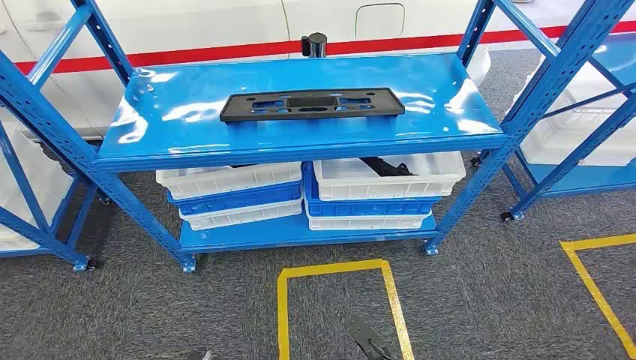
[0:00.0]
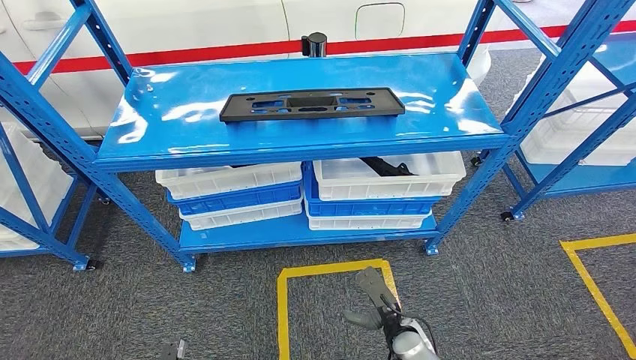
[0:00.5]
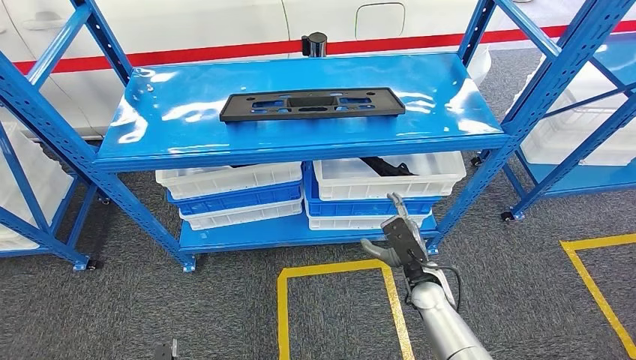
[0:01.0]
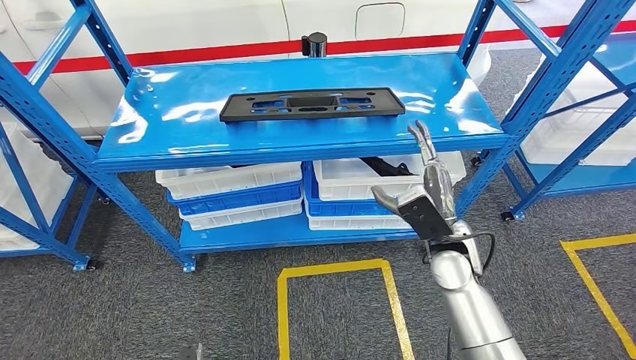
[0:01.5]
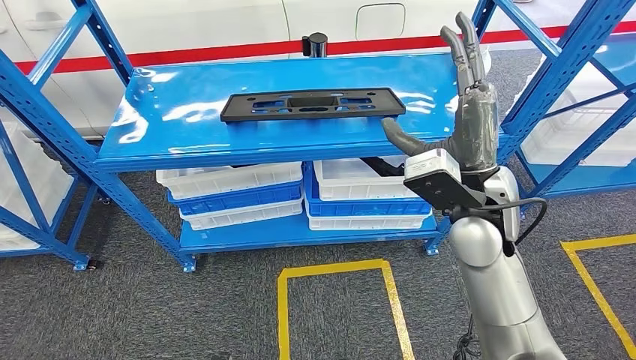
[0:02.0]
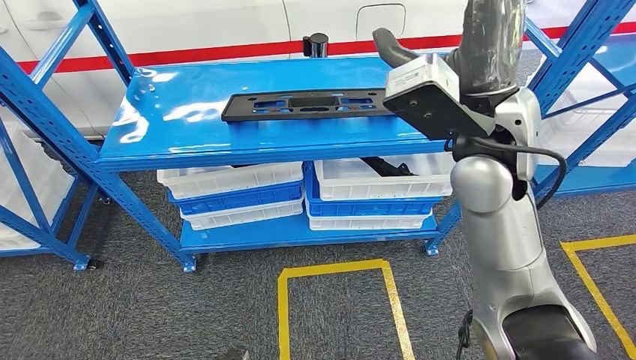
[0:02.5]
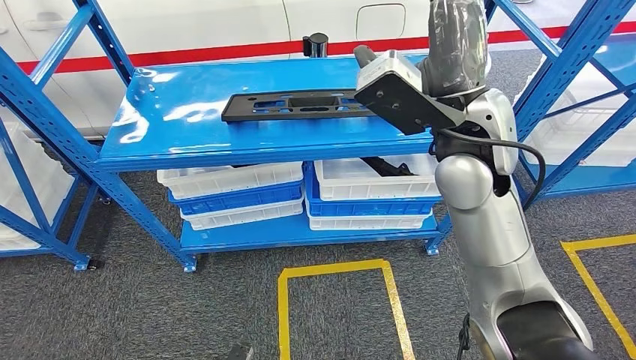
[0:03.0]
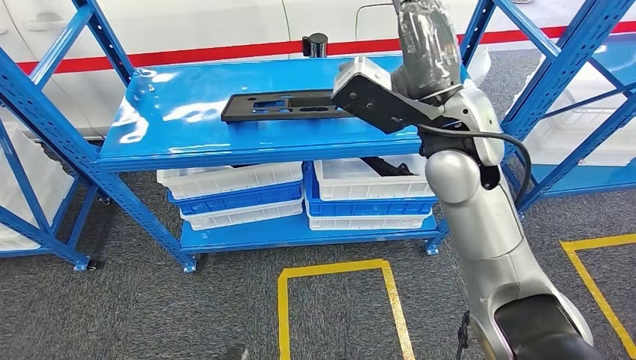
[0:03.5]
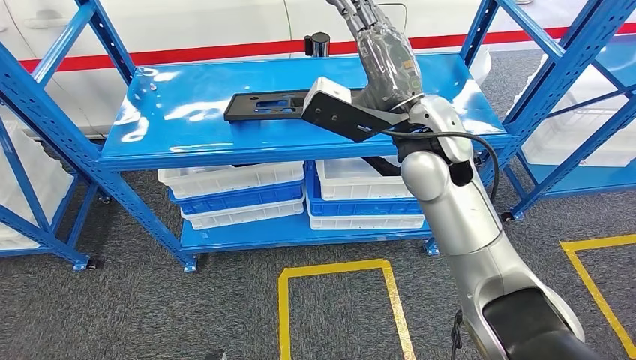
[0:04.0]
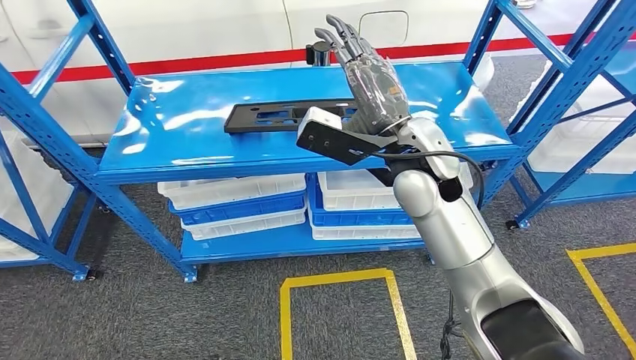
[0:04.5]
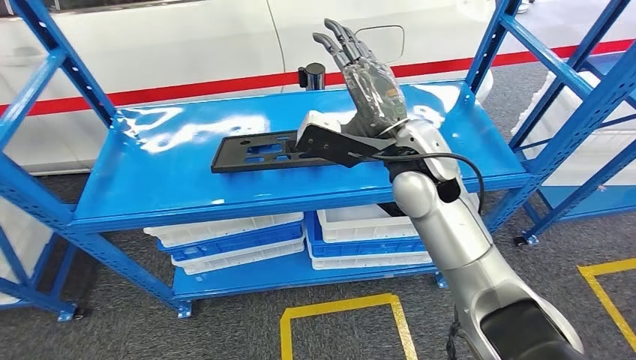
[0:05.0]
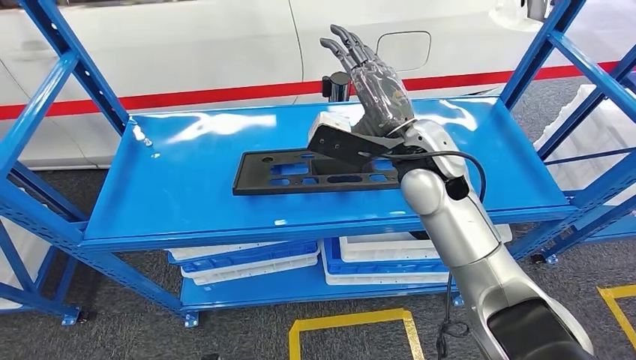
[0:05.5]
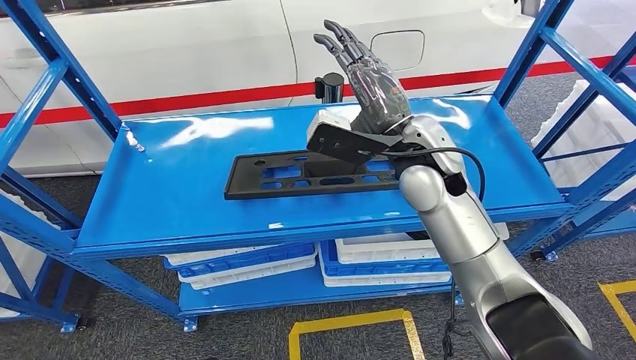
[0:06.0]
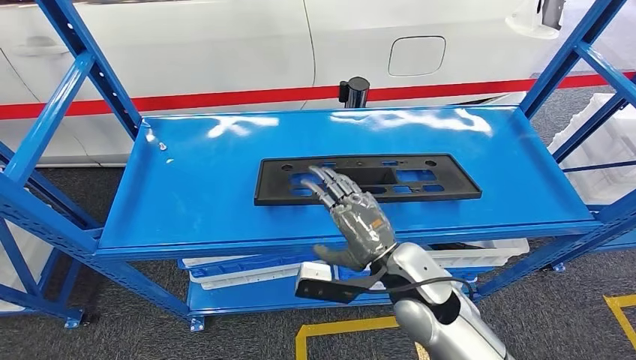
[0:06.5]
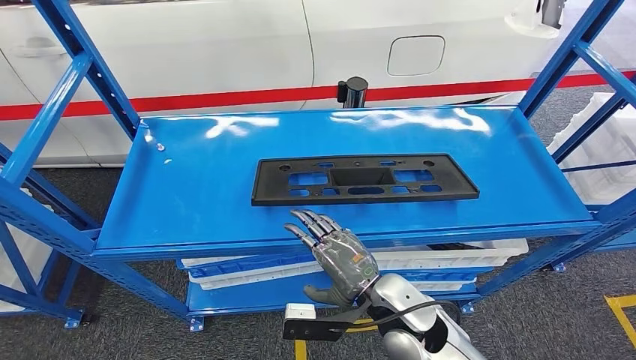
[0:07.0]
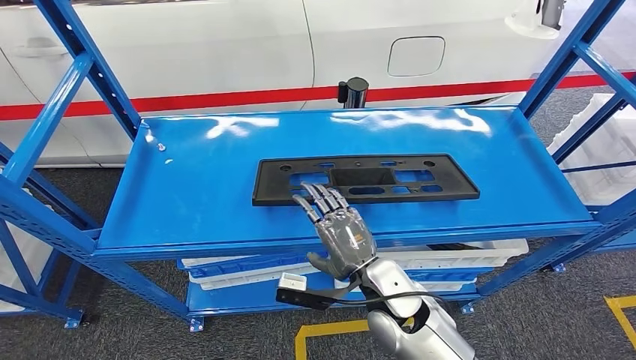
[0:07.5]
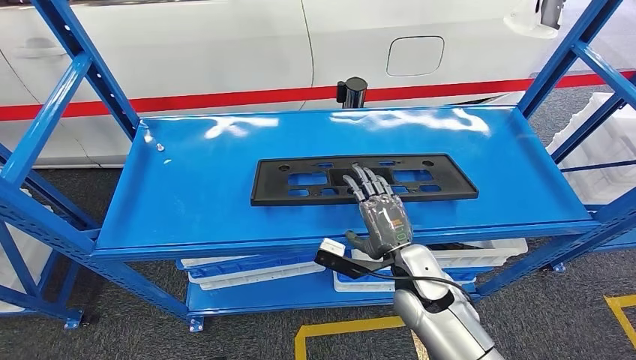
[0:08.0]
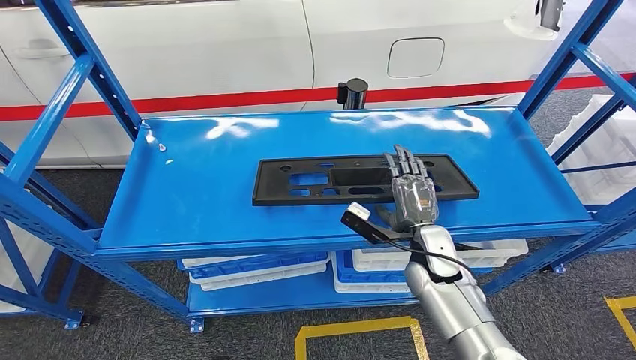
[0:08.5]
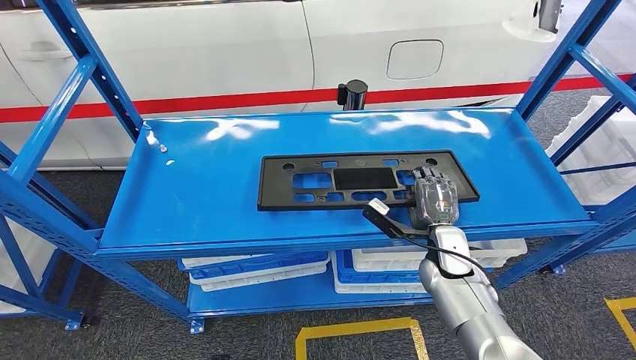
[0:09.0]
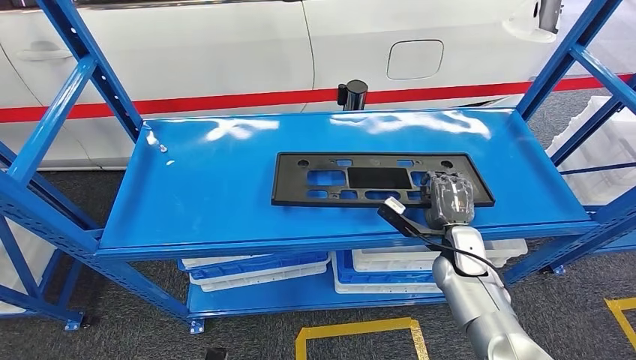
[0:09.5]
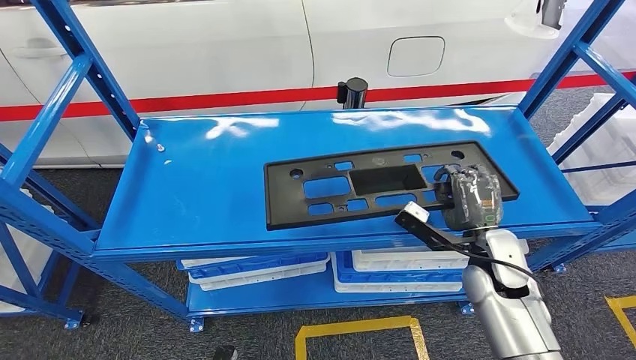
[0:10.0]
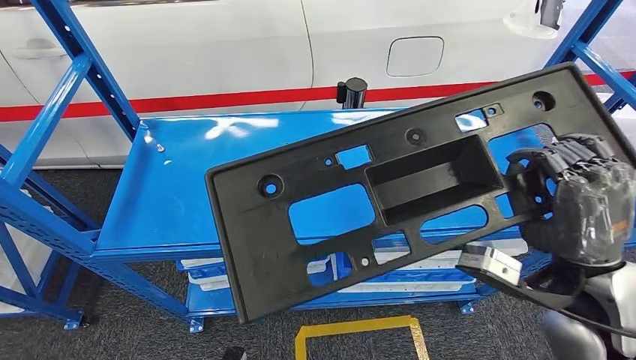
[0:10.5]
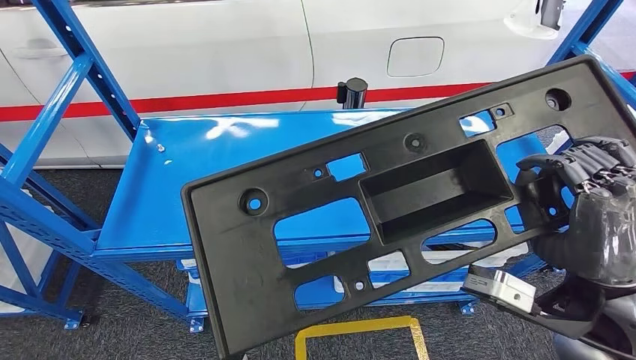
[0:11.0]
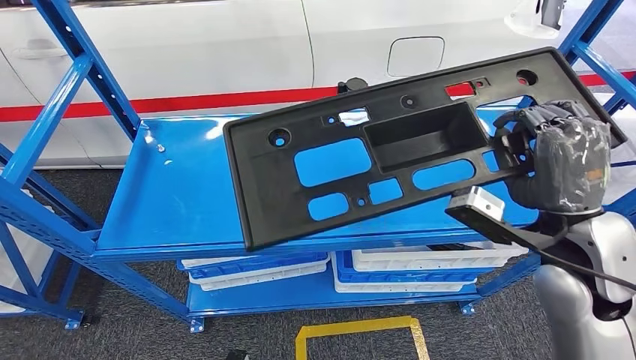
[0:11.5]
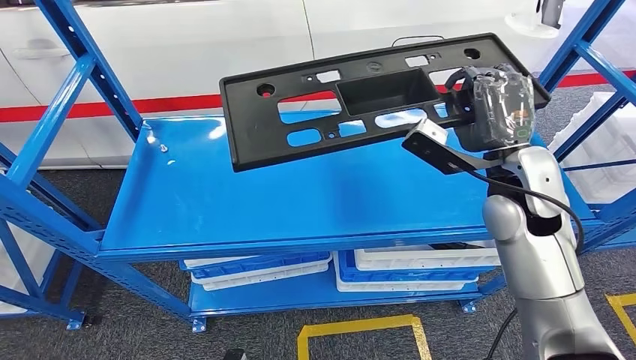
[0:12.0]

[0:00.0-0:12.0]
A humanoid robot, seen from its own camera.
0:02.0 to 0:04.0: The right hand shifts some 10 cm forward, upward and to the left.
0:08.0 to 0:10.0: The right hand travels to the right by roughly 15 cm.

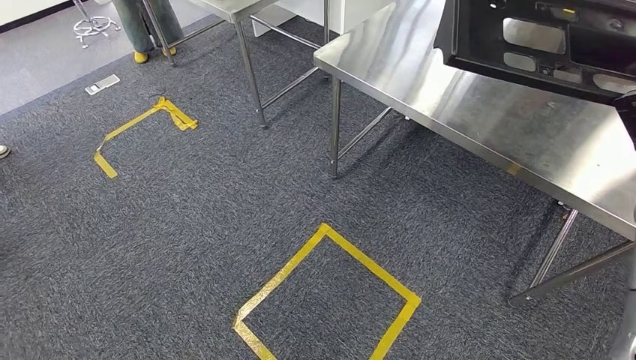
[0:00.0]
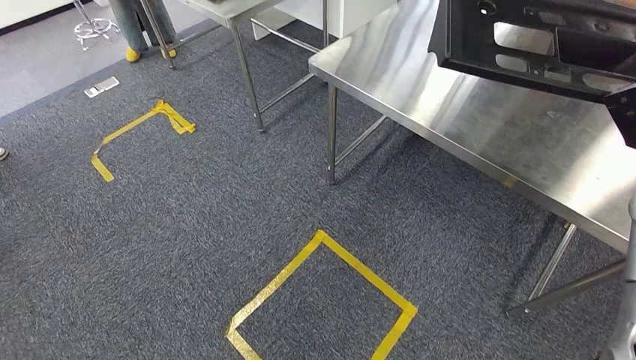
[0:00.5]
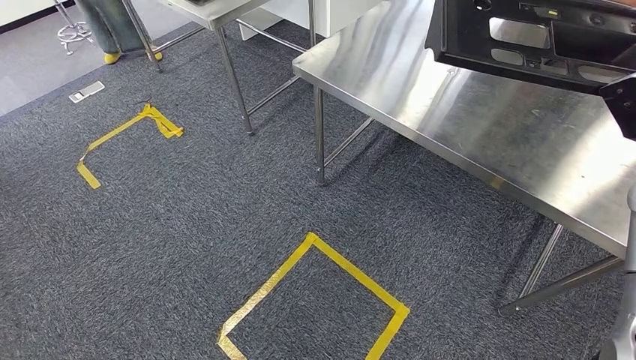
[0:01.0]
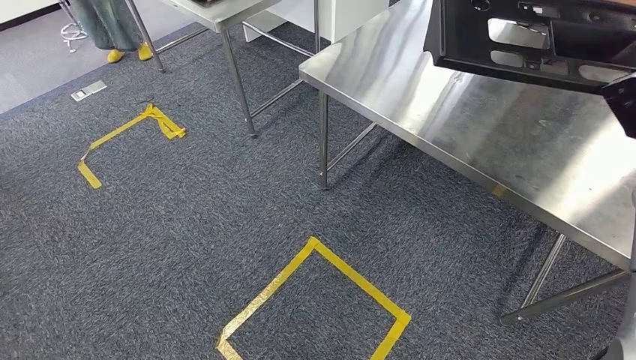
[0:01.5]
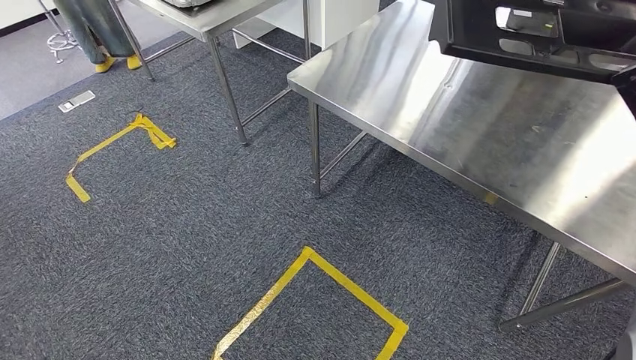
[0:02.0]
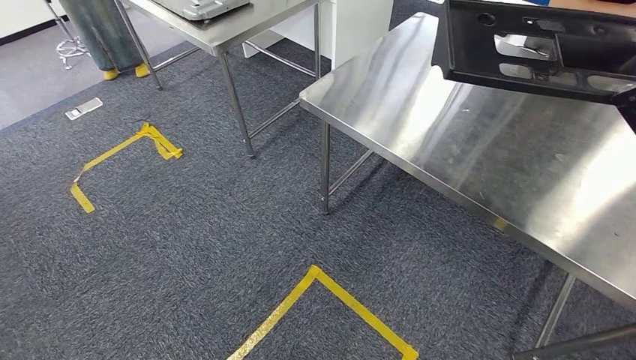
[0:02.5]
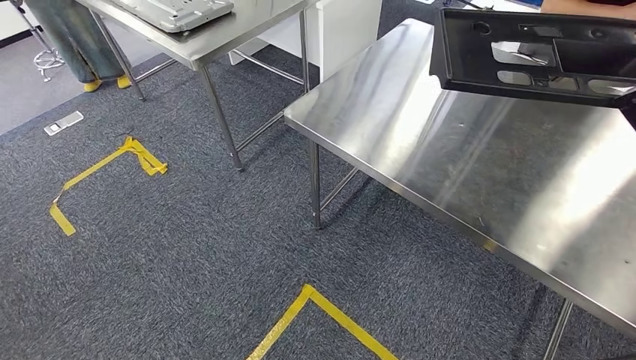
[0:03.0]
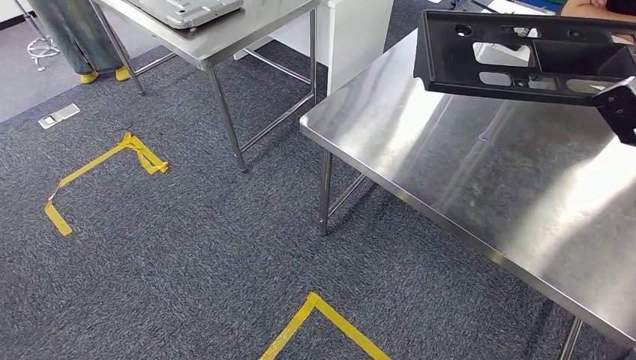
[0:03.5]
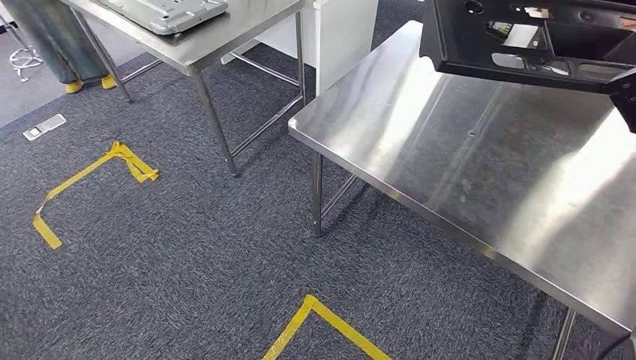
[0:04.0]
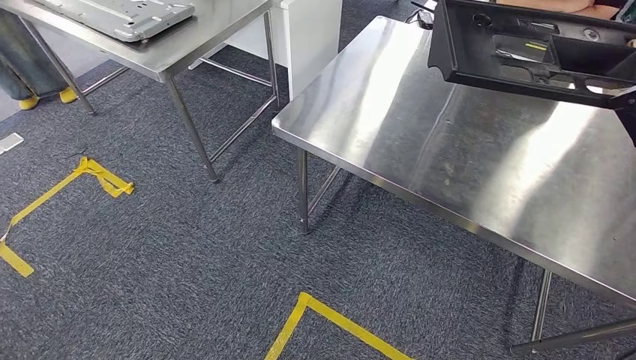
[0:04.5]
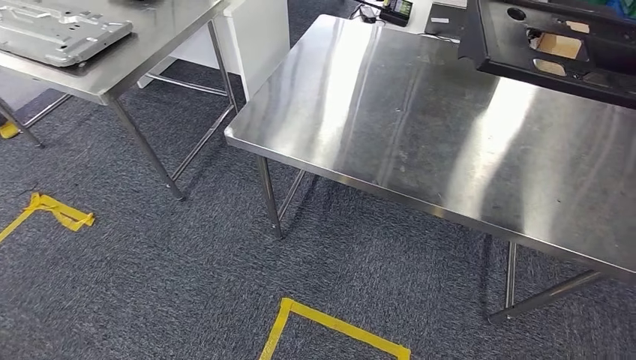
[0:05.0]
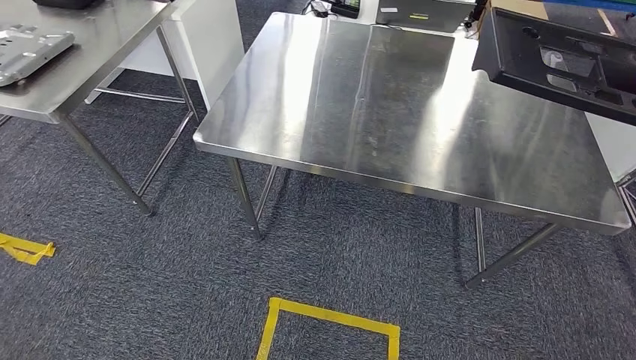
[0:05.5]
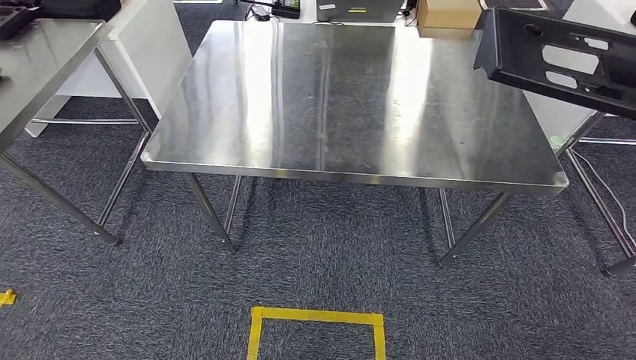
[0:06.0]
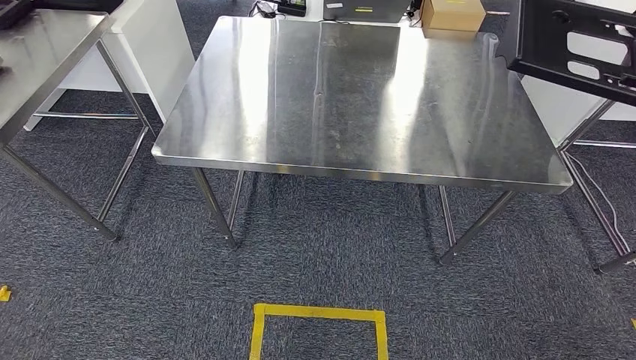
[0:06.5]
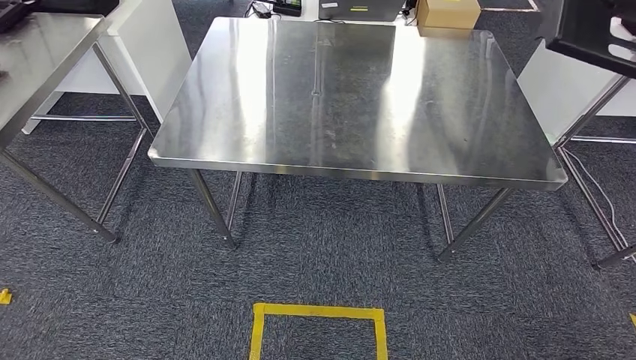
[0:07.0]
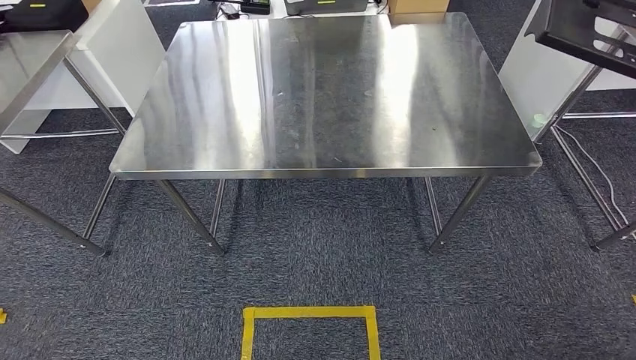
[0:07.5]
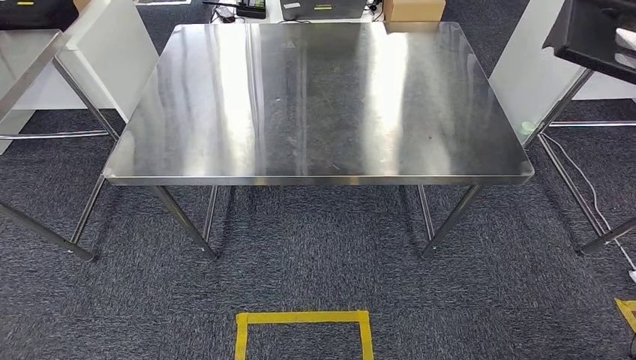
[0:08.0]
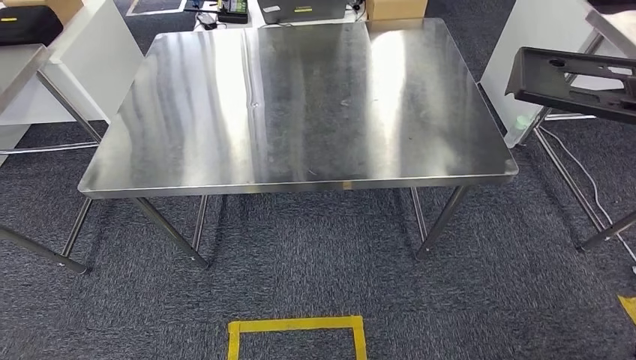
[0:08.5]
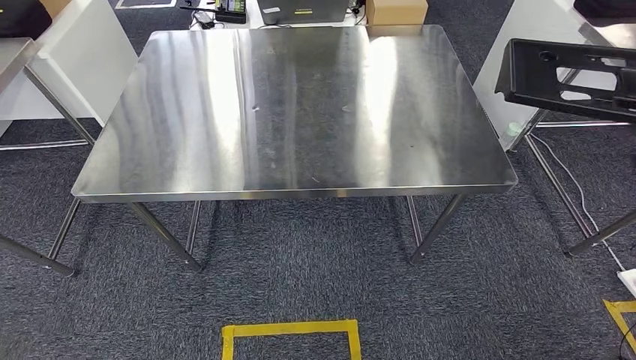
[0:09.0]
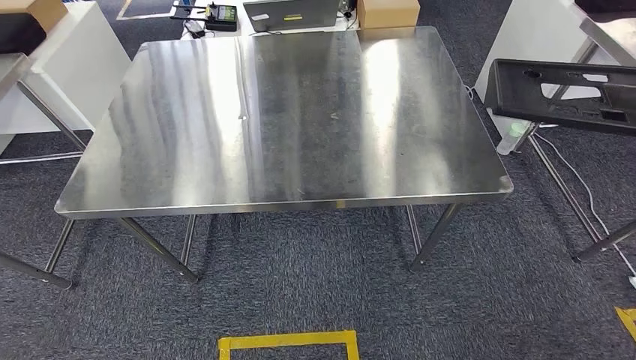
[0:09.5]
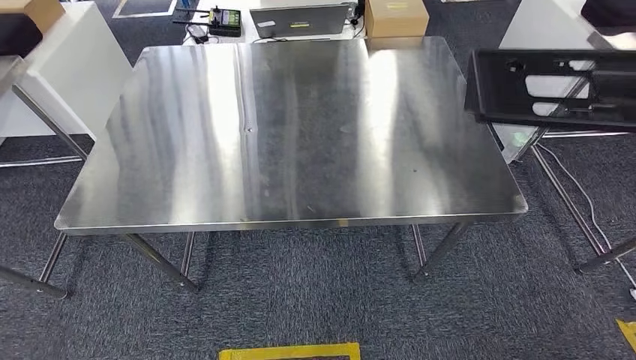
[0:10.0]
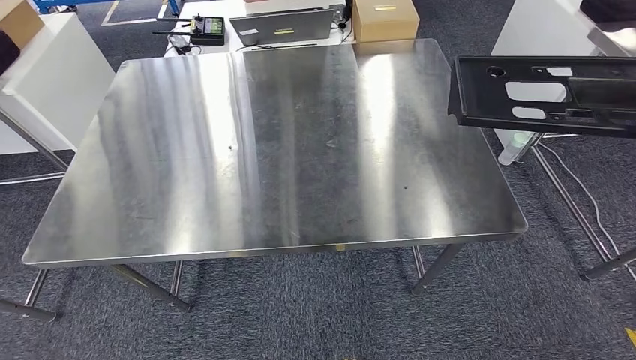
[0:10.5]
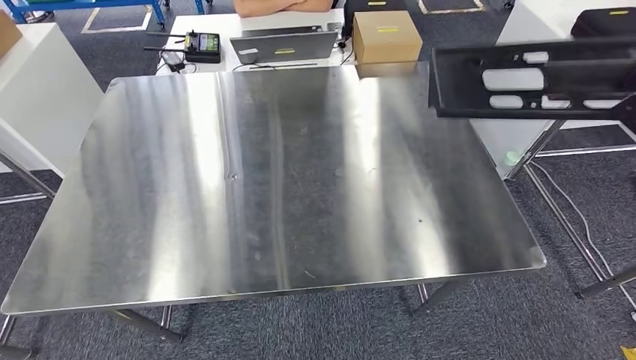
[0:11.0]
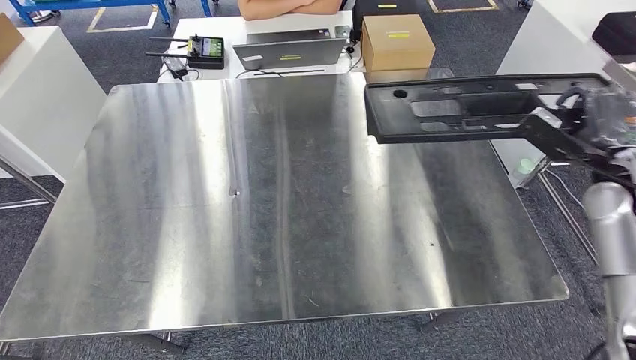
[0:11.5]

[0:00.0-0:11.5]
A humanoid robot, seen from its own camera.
Step, 0:00.0 to 0:03.0: Move the large material to the front of the workbench.
